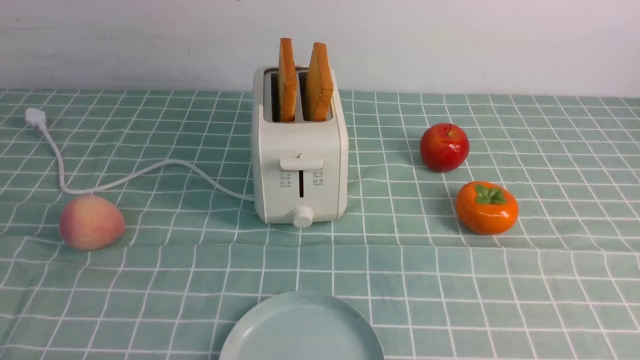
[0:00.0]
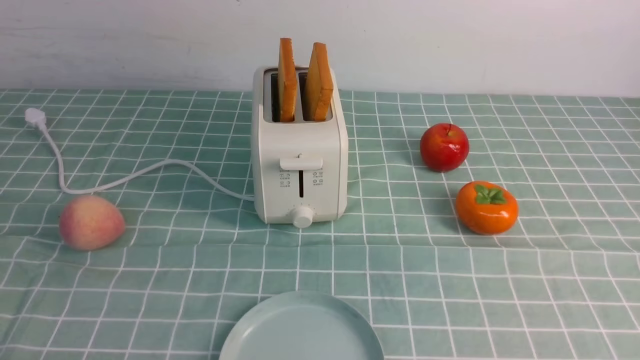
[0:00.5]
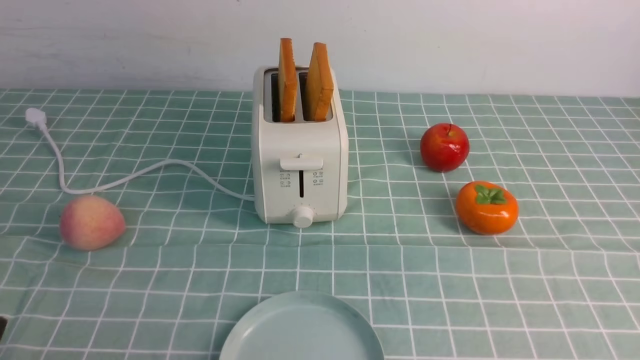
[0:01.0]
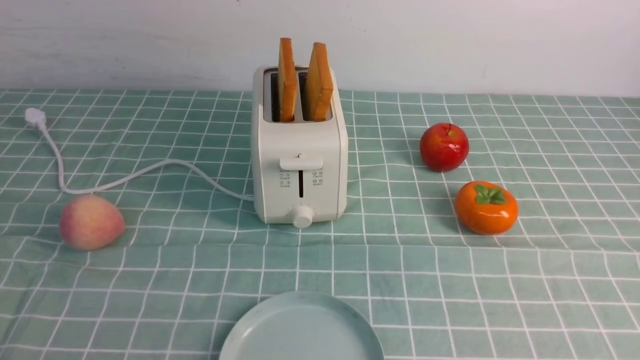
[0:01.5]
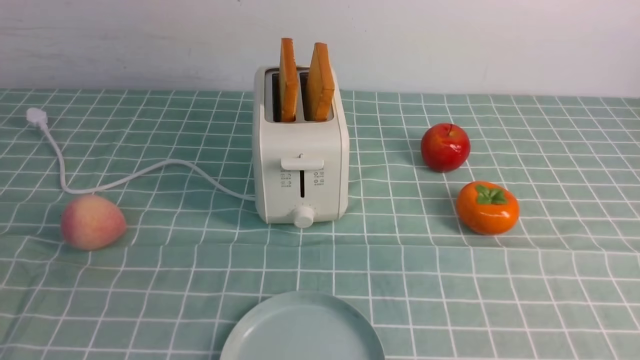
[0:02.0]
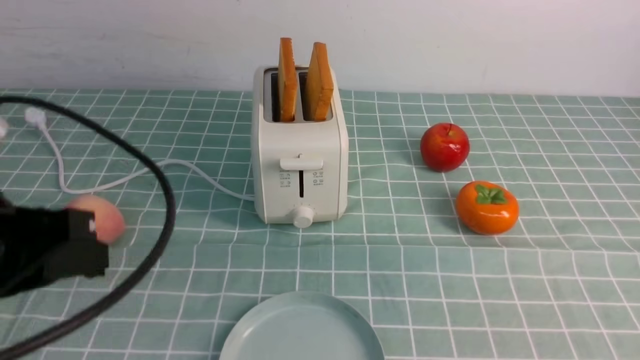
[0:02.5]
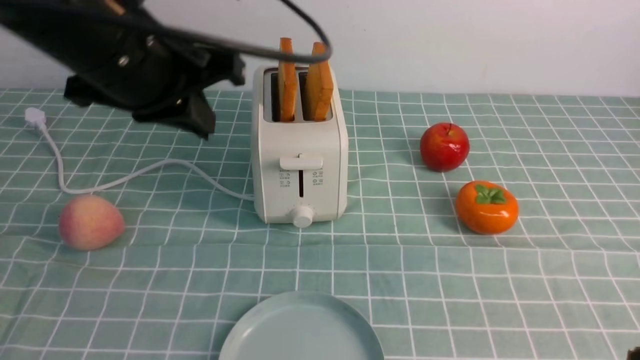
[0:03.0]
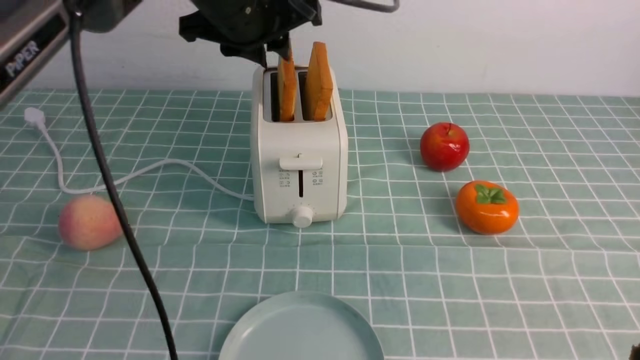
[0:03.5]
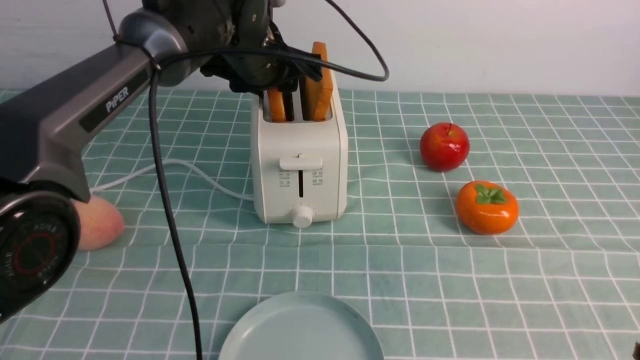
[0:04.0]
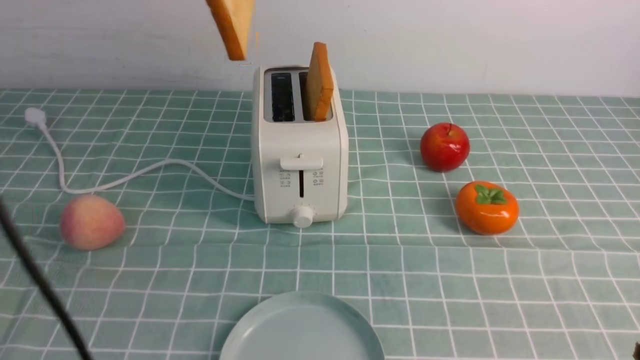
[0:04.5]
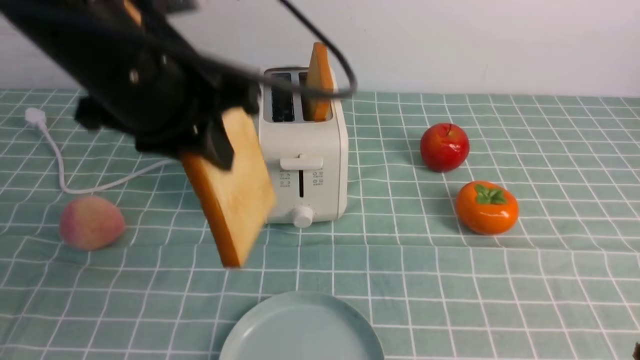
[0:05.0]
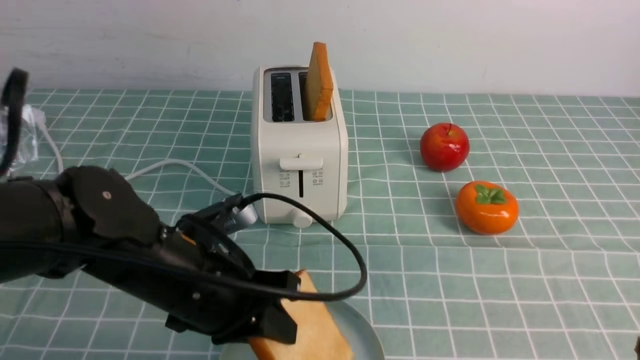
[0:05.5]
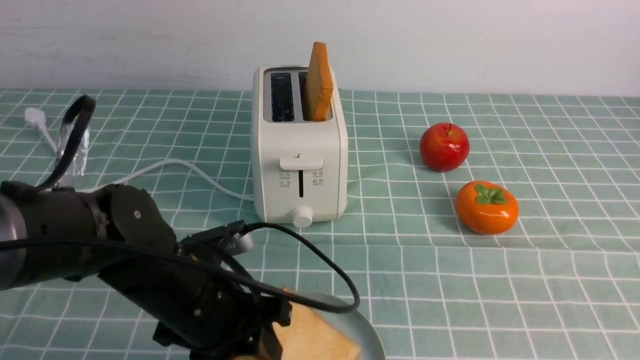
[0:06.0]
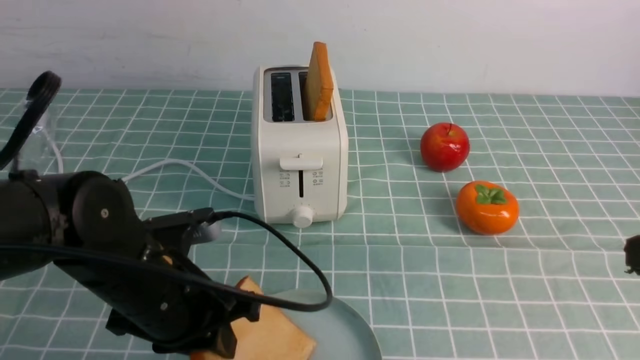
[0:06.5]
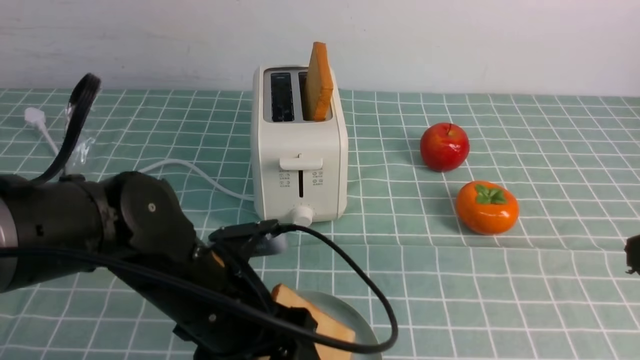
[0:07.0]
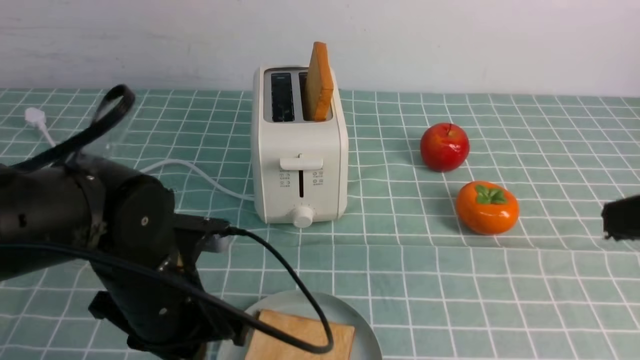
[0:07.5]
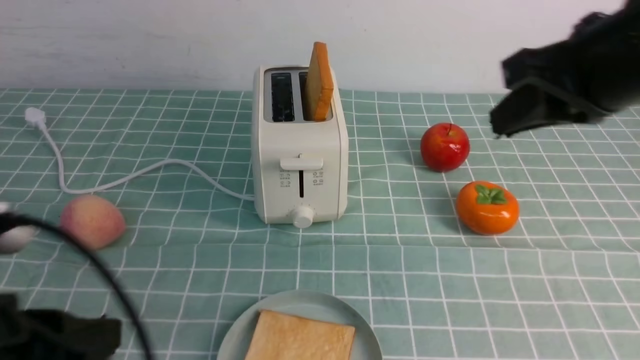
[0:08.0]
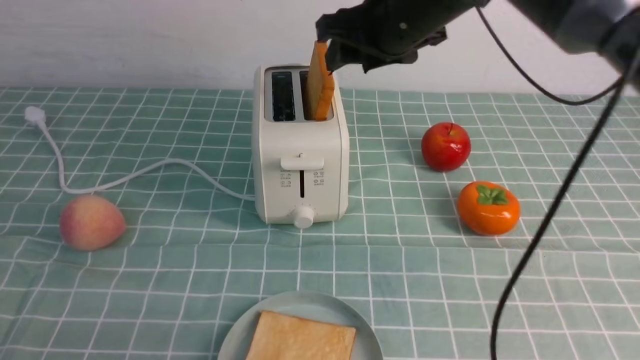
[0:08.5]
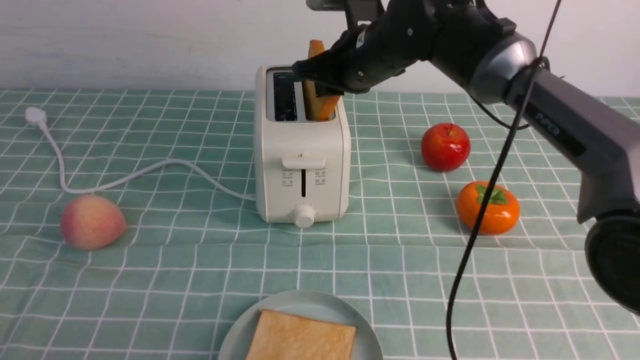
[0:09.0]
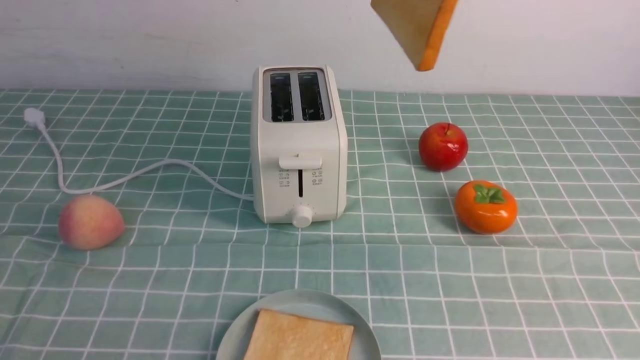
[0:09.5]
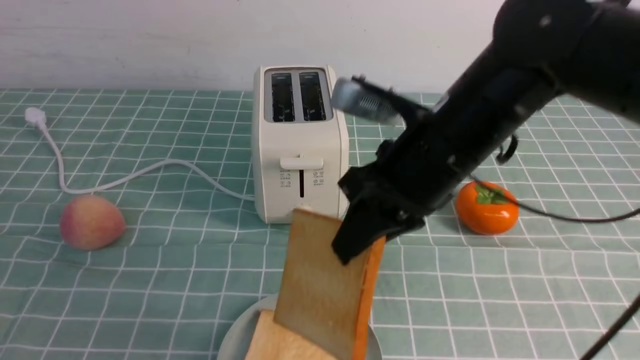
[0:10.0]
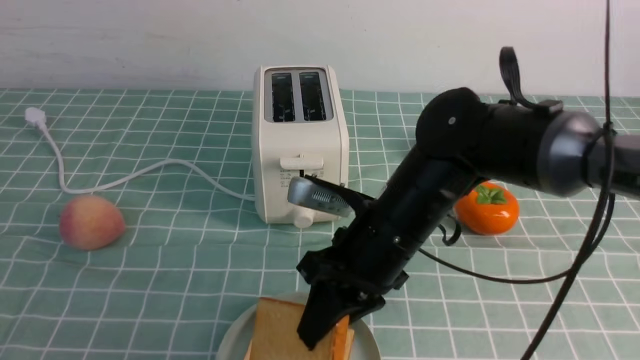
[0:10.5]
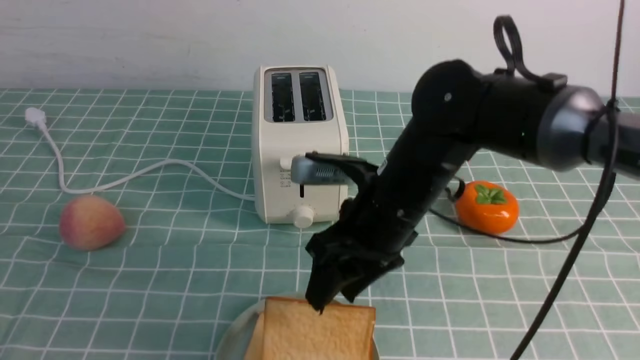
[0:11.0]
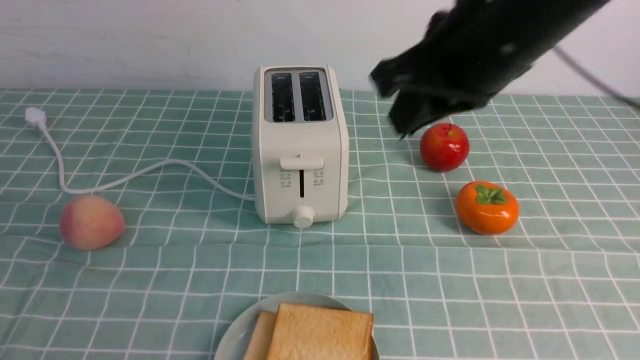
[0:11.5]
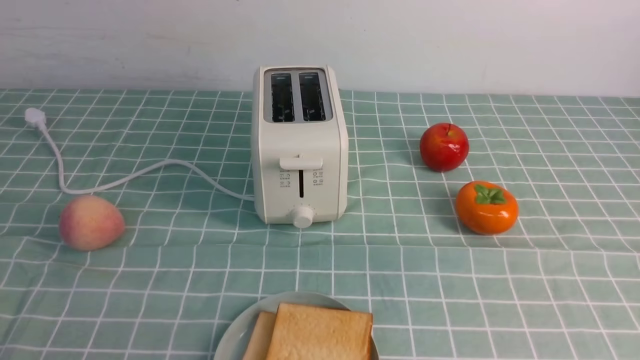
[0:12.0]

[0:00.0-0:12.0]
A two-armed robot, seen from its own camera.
Task of the whole recording: take toasted bread from bread machine on blue coffee table place on plate.
Step, 0:00.0 to 0:04.5: use the left arm to take out a slice of bread.
Step, 0:05.0 to 0:07.5: use the left arm to put a slice of bread into the empty plate.
Step, 0:08.5 to 0:09.0: use the right arm to take out a slice of bread.
Step, 0:09.5 to 0:11.0: use the right arm to put a slice of bread into the plate.
0:02.0 to 0:04.0: The left gripper heads forward, covering about 40 cm, and opens up. The right gripper shifts about 10 cm upward, and closes up.
0:04.0 to 0:06.0: The left gripper goes some 25 cm backward and downward.
0:06.0 to 0:08.0: The right gripper travels forward, to the left and upward by roughly 20 cm. Meanwhile the left gripper goes approximately 20 cm backward, upward and to the left, and closes.
0:08.0 to 0:10.0: The left gripper travels backward by approximately 5 cm. The right gripper travels downward and to the left by about 15 cm, reaches roughly 20 cm forward, then returns, and opens, then closes once more.
0:10.0 to 0:12.0: The right gripper heads backward, to the right and upward, covering approximately 35 cm, and opens, then closes once more.

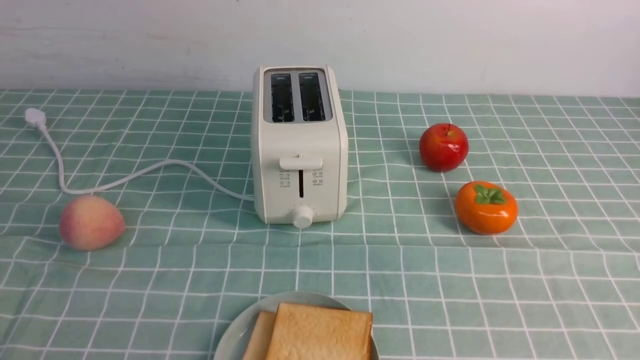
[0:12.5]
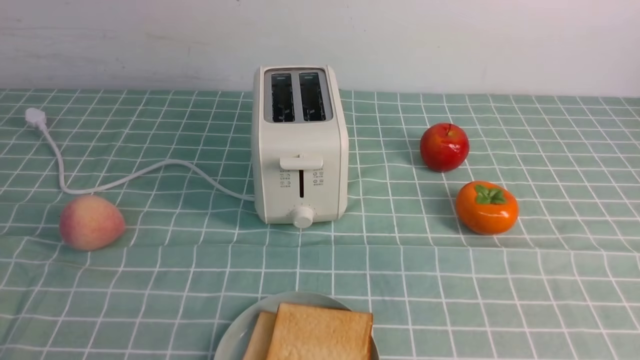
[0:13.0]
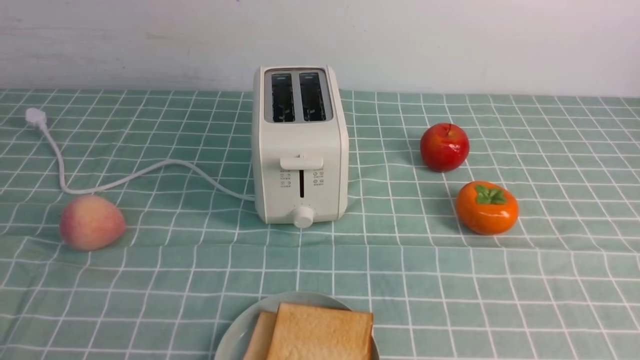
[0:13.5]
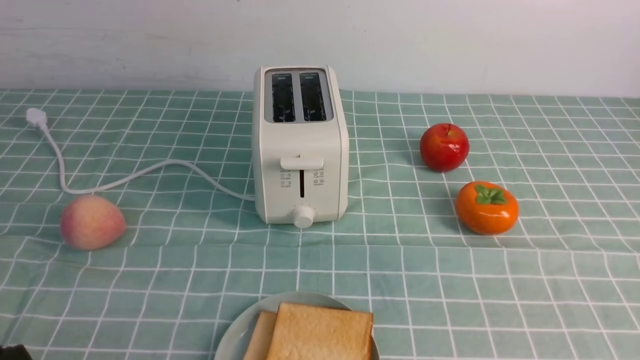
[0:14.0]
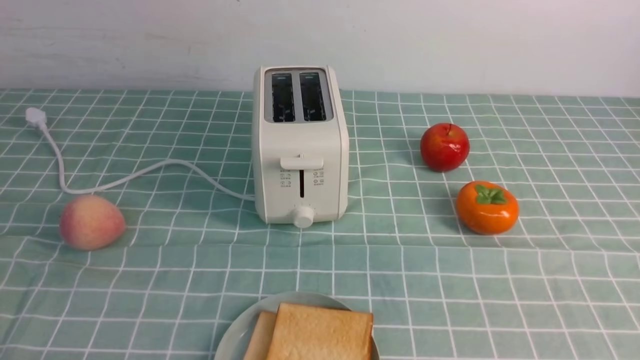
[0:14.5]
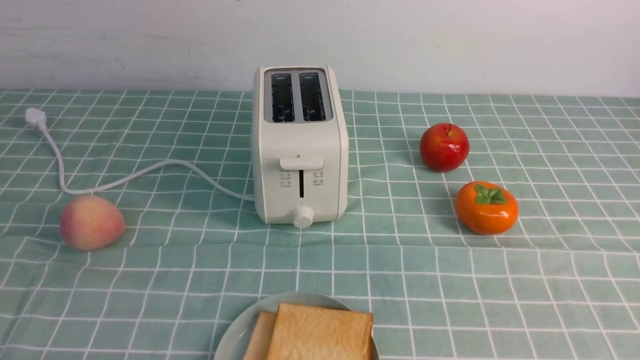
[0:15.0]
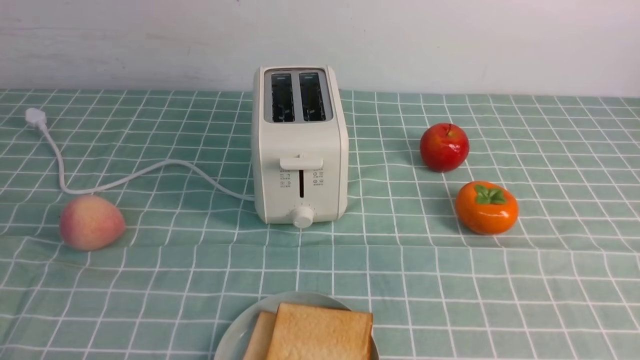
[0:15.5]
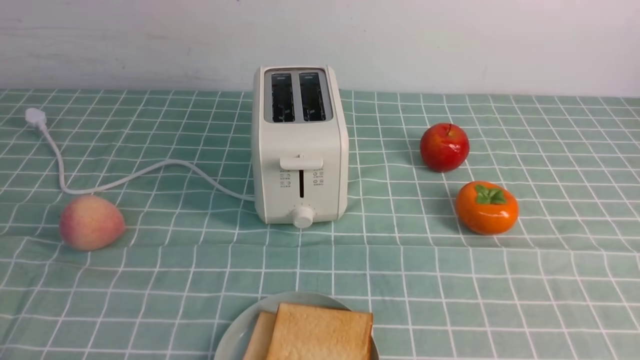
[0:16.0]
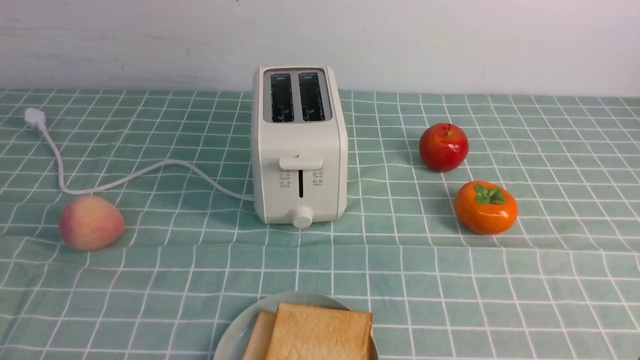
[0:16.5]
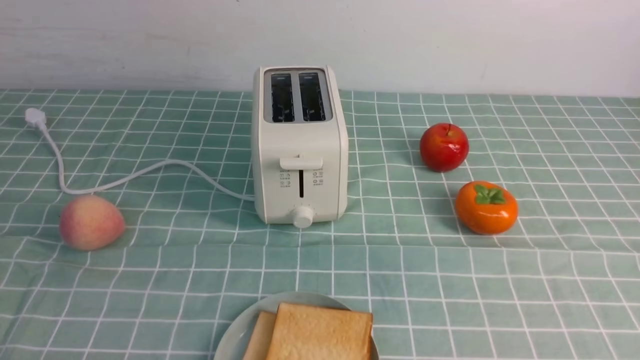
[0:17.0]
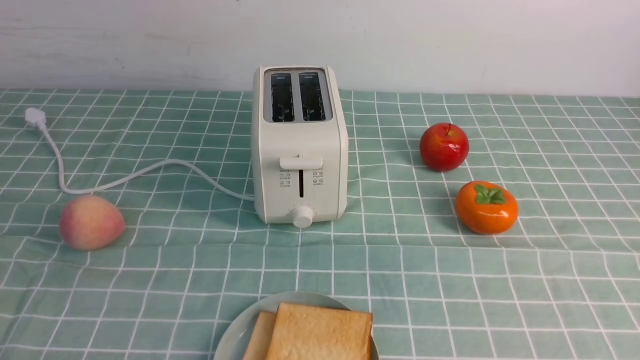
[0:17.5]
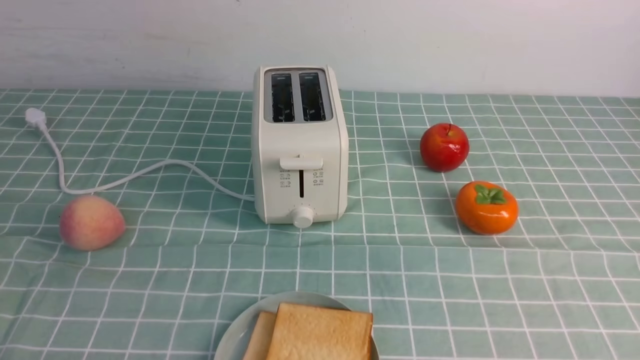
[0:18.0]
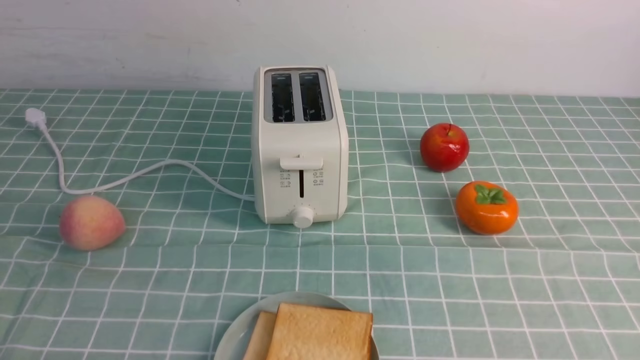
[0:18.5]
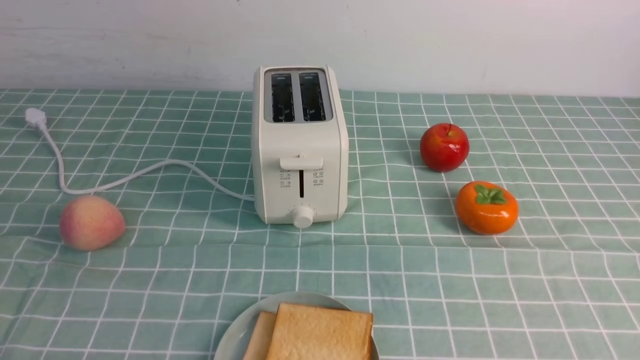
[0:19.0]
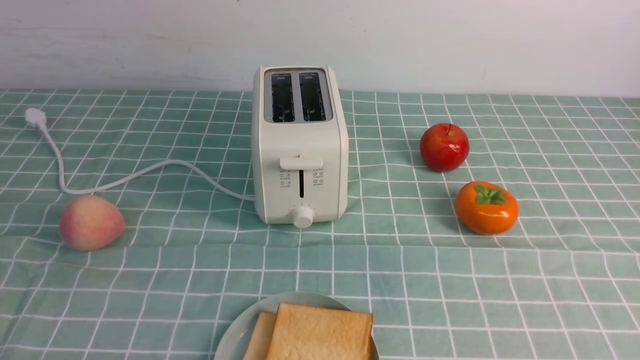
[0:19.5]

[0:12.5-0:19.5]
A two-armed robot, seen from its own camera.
Task of the whole recording: take toasted bread from bread machine on blue coffee table place on plate.
0:17.5 to 0:19.5: Neither gripper changes place.
